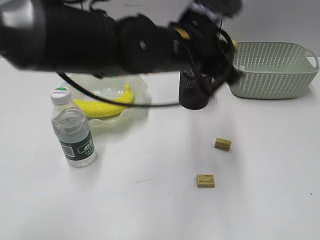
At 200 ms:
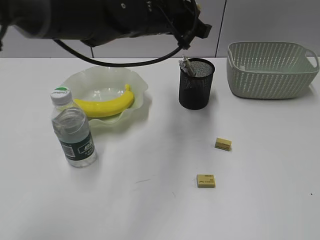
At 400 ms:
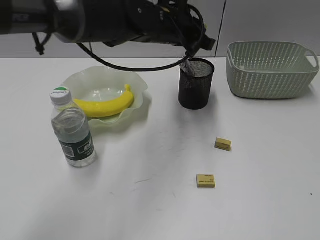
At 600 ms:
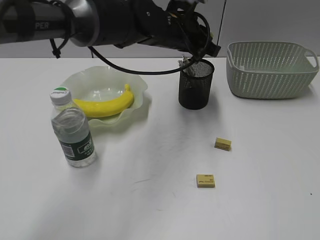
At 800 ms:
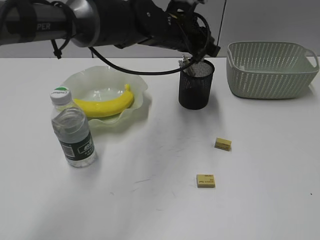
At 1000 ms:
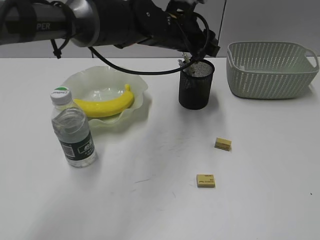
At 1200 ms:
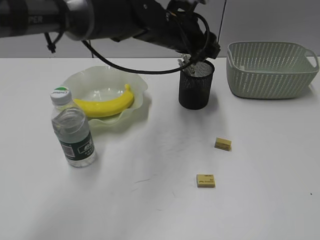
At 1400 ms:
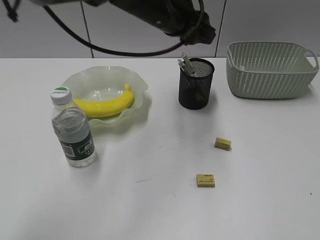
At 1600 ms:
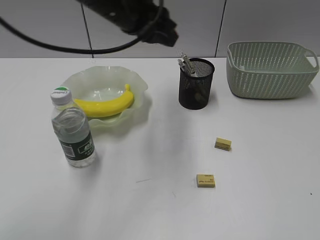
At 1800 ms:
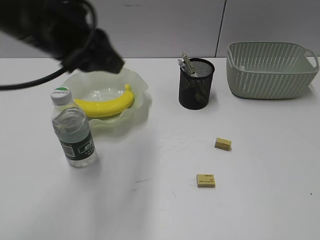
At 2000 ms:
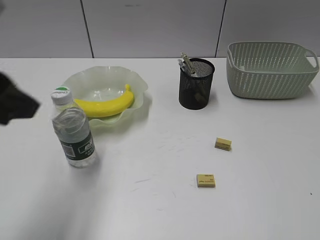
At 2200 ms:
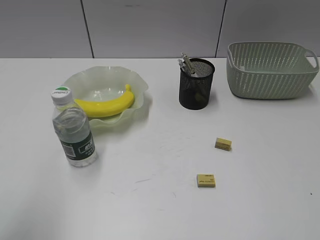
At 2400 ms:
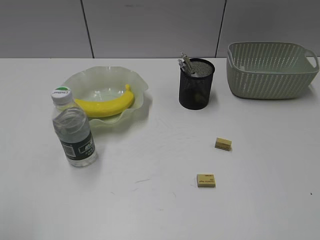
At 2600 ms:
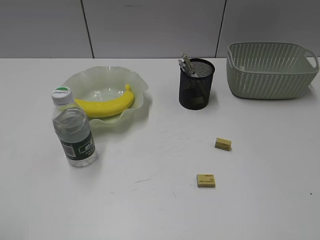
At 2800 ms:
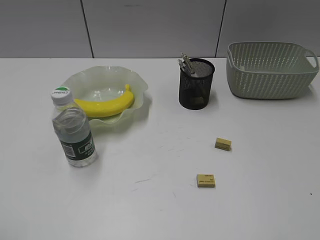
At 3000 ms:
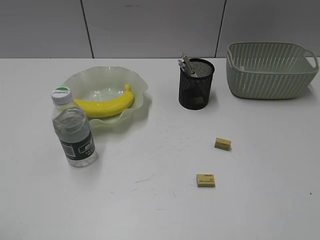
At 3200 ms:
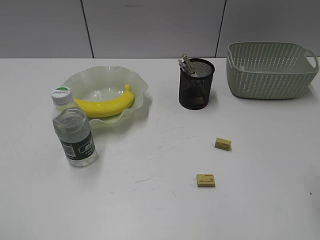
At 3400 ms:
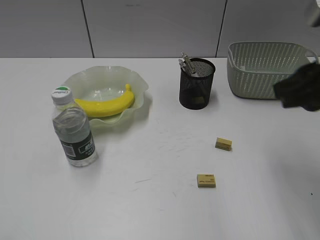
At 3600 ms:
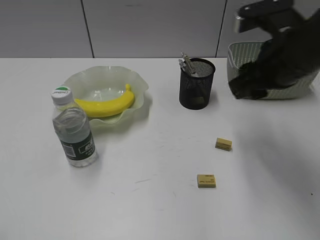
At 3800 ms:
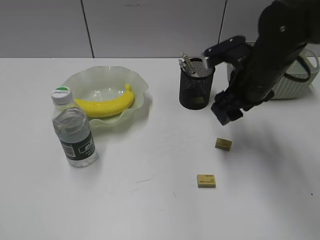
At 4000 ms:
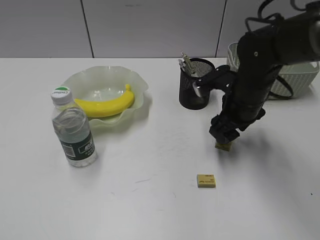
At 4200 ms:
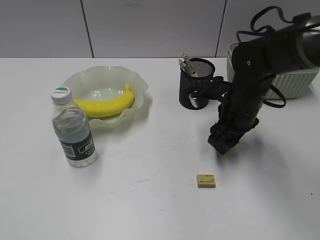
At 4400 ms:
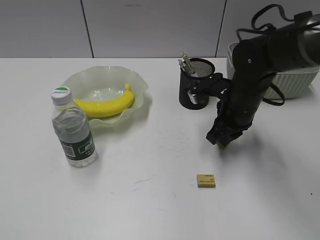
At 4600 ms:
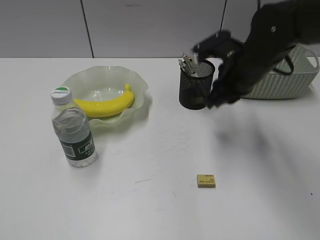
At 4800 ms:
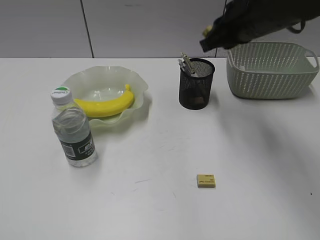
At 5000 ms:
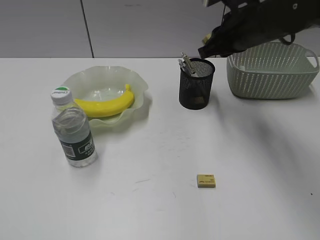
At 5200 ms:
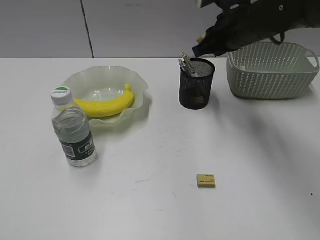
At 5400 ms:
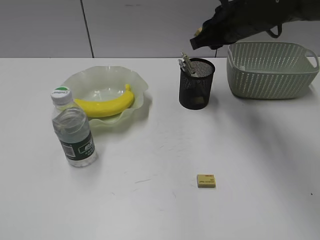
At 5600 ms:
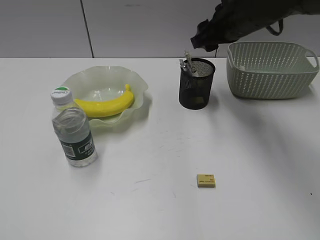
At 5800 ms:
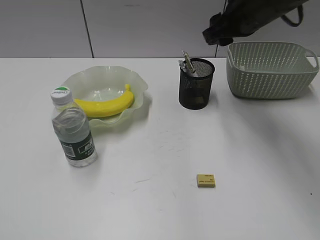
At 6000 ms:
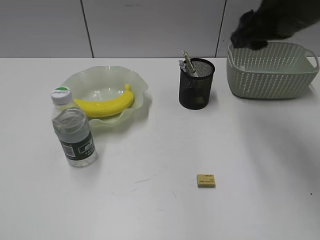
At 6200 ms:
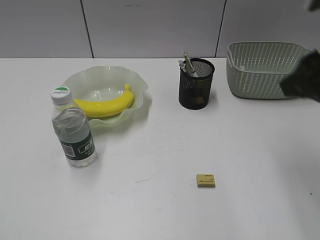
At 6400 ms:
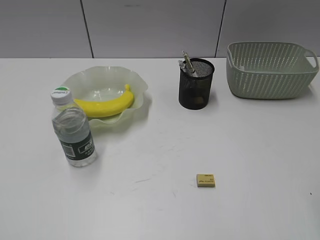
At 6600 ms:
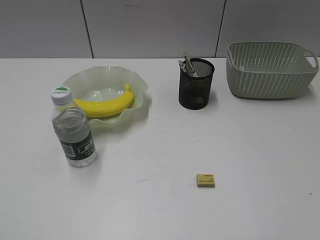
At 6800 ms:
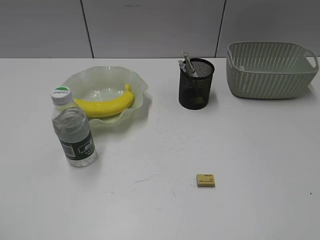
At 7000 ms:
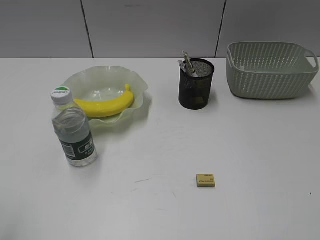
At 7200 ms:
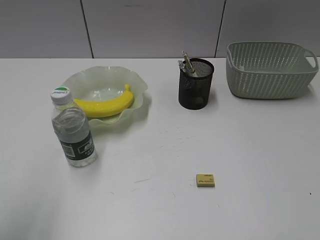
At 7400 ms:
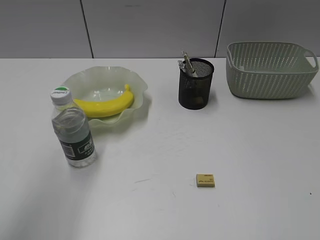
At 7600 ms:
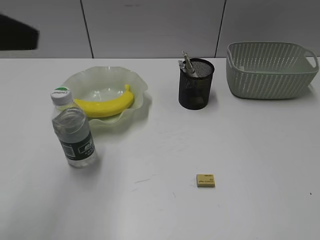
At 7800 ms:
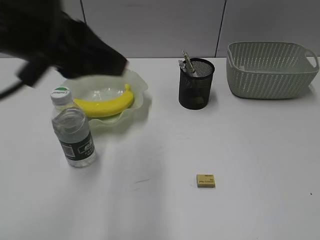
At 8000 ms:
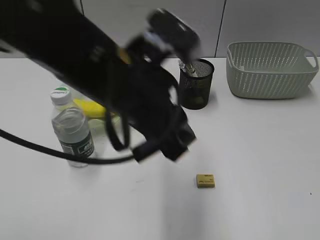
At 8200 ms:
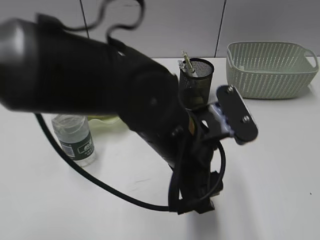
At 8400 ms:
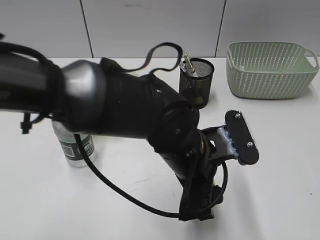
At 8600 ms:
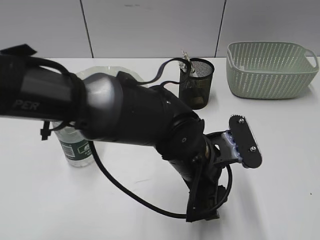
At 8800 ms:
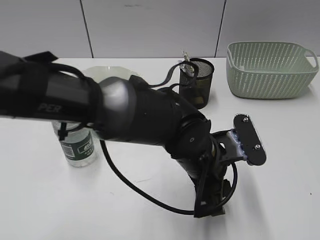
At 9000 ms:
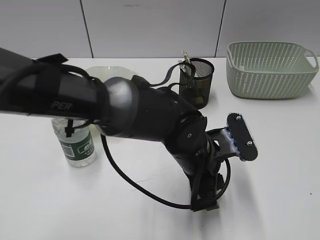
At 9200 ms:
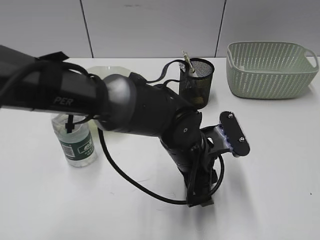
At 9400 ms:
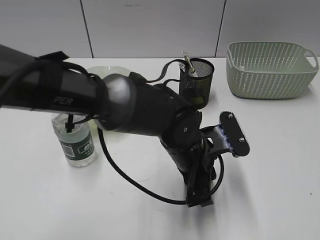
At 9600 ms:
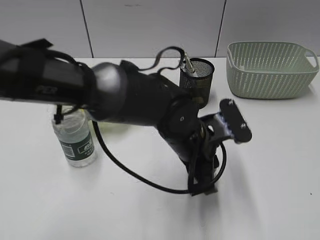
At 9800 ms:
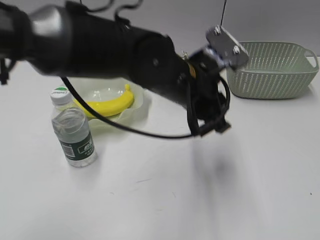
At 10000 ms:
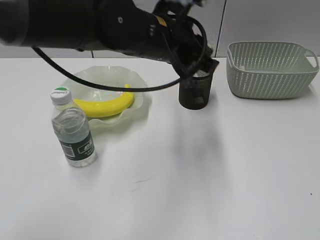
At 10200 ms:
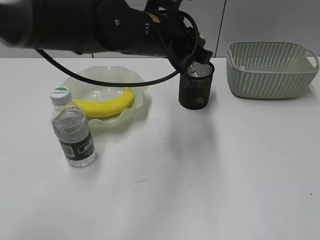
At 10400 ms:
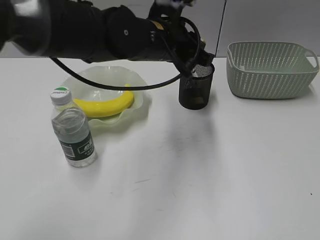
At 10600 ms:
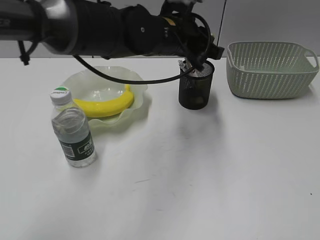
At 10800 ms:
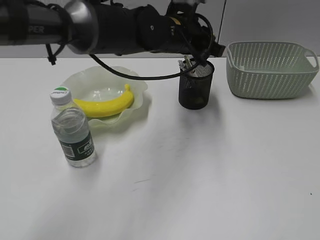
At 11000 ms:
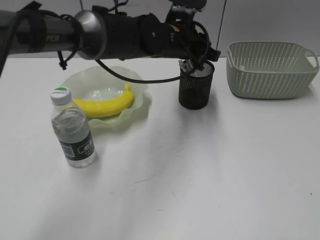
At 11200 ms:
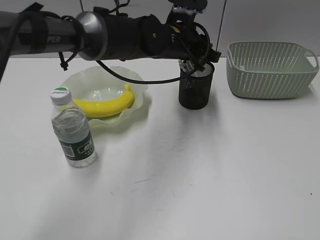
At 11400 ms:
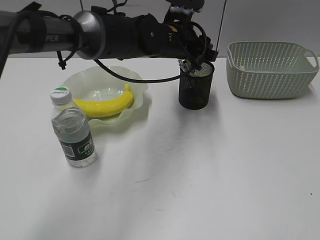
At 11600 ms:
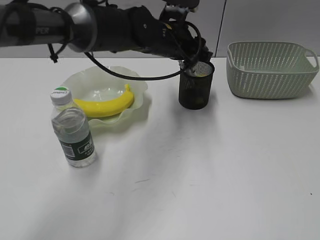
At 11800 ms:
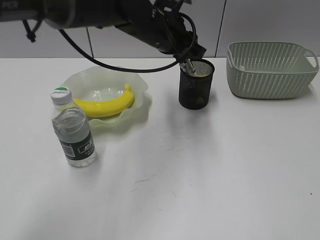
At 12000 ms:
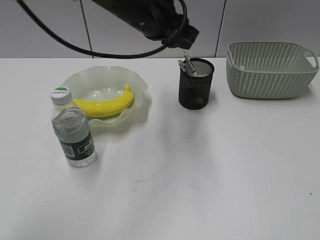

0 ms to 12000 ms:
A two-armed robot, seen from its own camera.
Step, 0 ms to 1000 ms: Place the eraser in pen holder with left gripper.
Step, 1200 ms to 4400 ms: Grasp the eraser with right gripper.
Step, 4600 ms to 5600 ms: Place the eraser in pen holder with right gripper.
Step, 5800 ms to 9400 ms: Grasp the eraser with left gripper.
Step, 9600 ms to 11600 ms: Place the eraser in pen holder with left gripper.
0 ms to 1600 ms: The left gripper goes some 10 cm to the left, moves about 10 cm forward and comes back, and opens, then closes again.
1600 ms to 3000 ms: The right gripper moves about 5 cm; the left gripper moves backward and to the left, approximately 40 cm.
3000 ms to 4400 ms: The right gripper is displaced forward, downward and to the left by some 40 cm, and opens and closes again.
4400 ms to 6000 ms: The right gripper is displaced upward by about 15 cm, and opens.
6000 ms to 7600 ms: The left gripper is displaced forward and to the right by some 25 cm. Meanwhile the right gripper shifts roughly 35 cm backward.
7600 ms to 9000 ms: The left gripper travels to the right and downward by some 35 cm, and opens and closes again.
9000 ms to 10400 ms: The left gripper goes some 15 cm upward, forward and to the left.
10400 ms to 12000 ms: The left gripper travels upward by approximately 5 cm.

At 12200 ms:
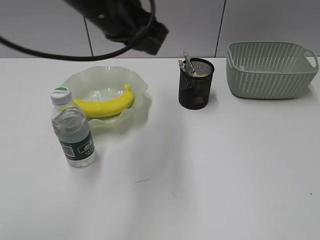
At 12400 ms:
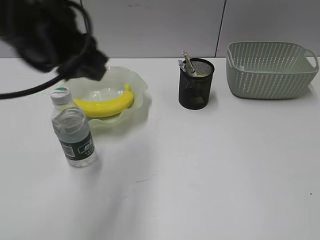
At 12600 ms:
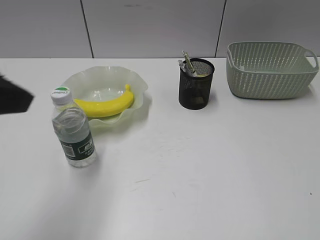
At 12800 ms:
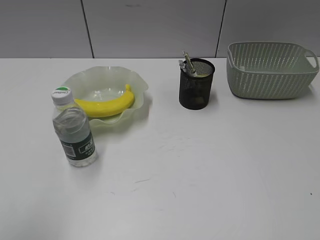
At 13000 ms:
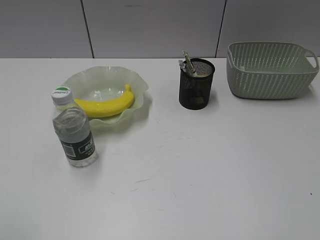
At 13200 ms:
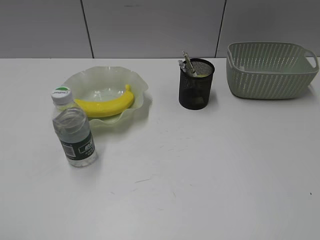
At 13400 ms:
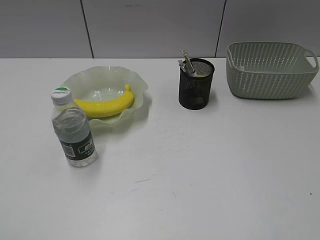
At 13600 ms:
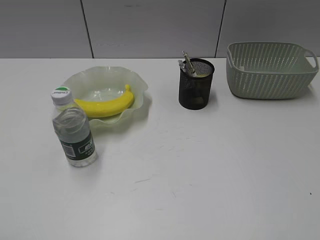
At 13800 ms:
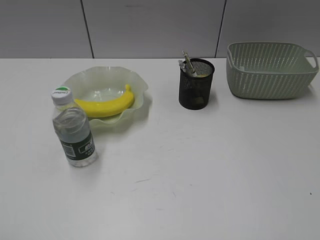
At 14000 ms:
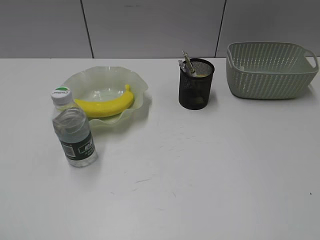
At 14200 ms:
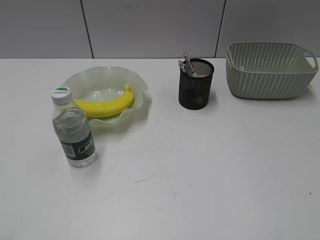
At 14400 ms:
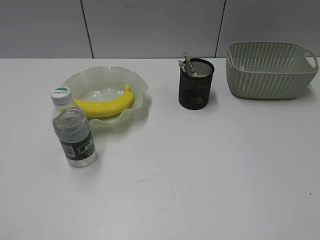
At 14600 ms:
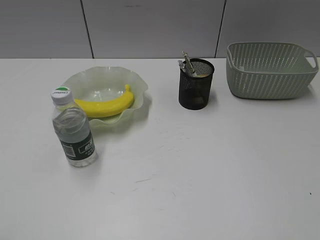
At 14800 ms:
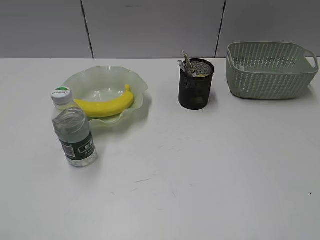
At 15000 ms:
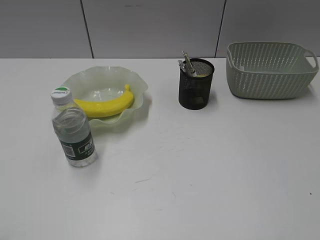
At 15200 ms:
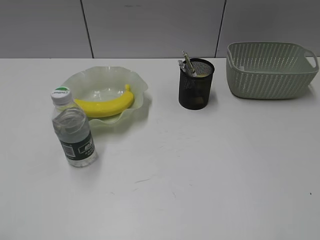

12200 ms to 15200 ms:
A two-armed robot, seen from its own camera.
12200 ms to 13800 ms: The left gripper moves backward and to the left, roughly 40 cm.

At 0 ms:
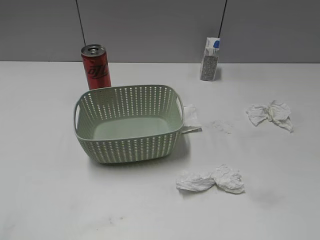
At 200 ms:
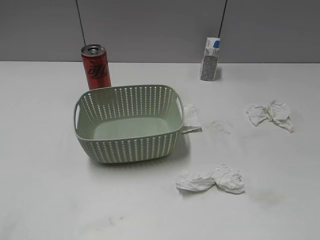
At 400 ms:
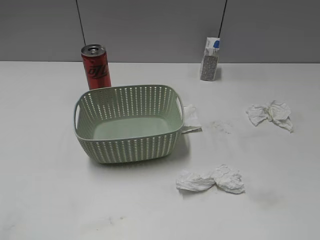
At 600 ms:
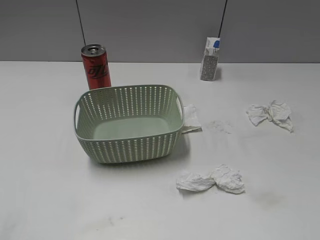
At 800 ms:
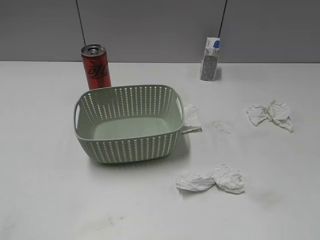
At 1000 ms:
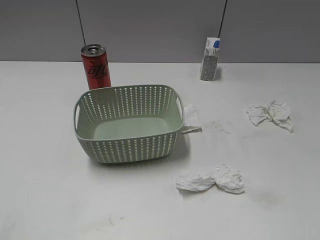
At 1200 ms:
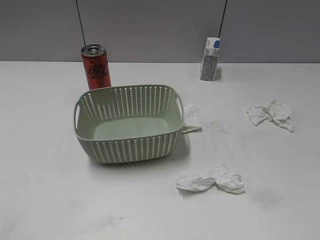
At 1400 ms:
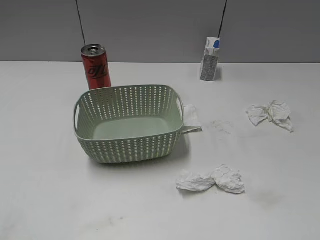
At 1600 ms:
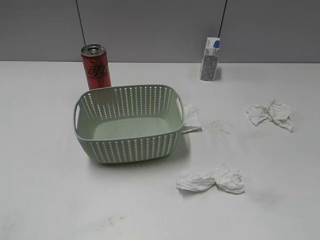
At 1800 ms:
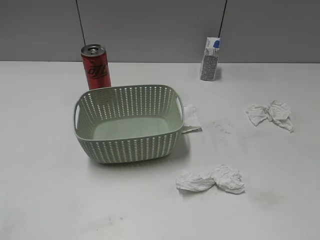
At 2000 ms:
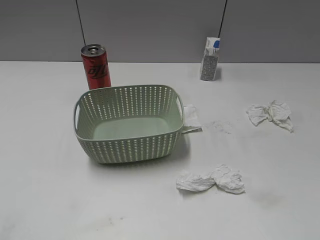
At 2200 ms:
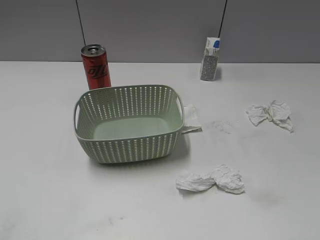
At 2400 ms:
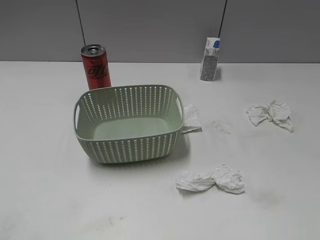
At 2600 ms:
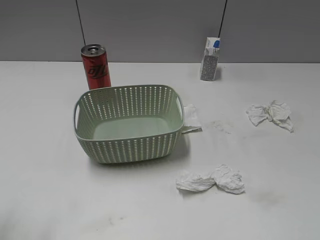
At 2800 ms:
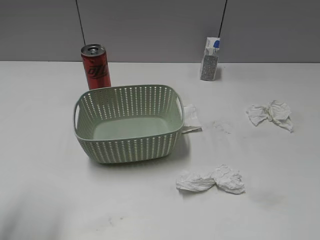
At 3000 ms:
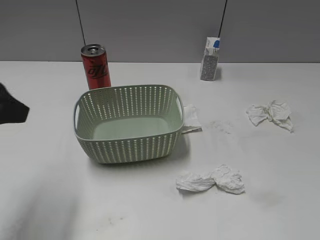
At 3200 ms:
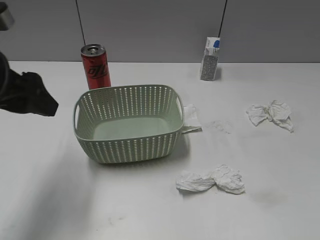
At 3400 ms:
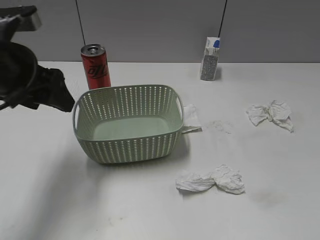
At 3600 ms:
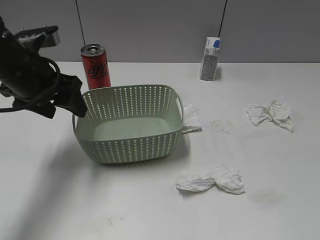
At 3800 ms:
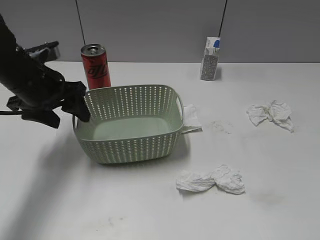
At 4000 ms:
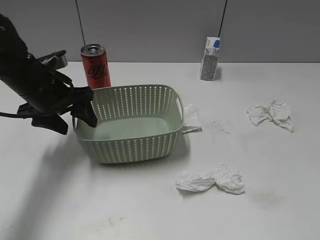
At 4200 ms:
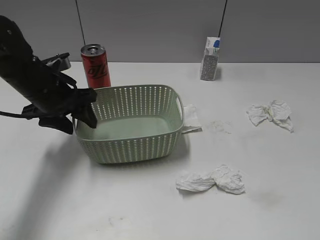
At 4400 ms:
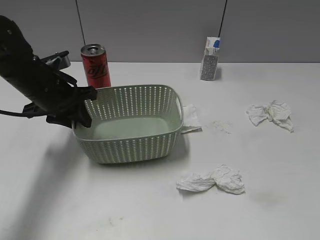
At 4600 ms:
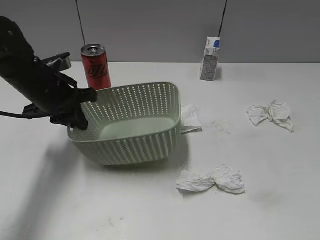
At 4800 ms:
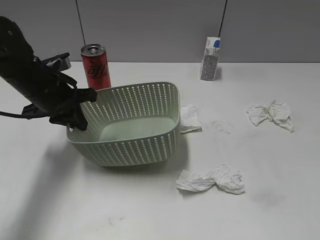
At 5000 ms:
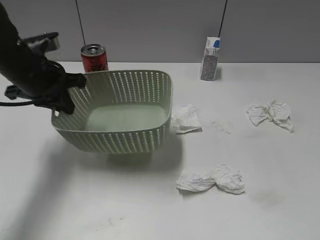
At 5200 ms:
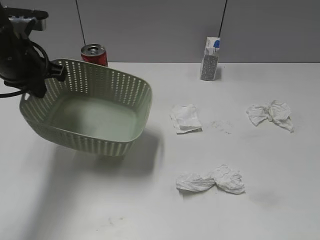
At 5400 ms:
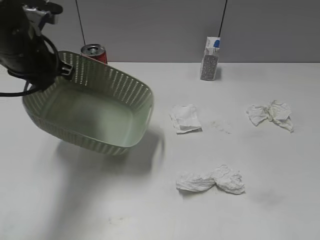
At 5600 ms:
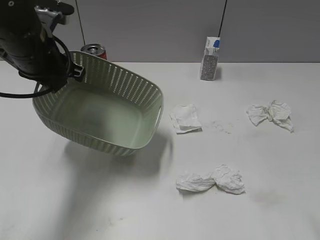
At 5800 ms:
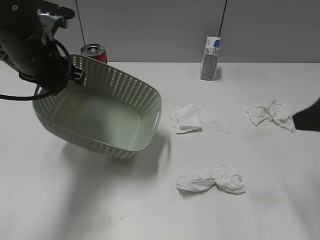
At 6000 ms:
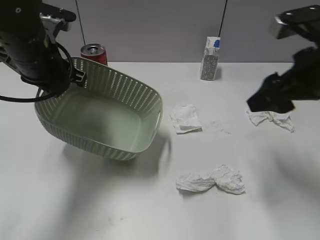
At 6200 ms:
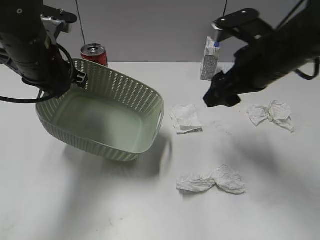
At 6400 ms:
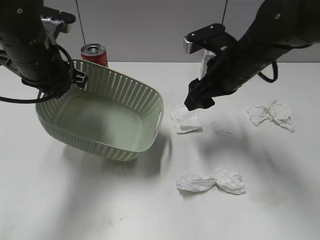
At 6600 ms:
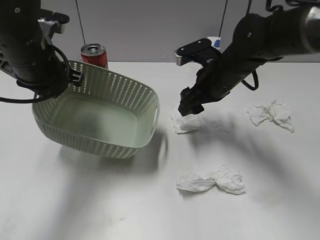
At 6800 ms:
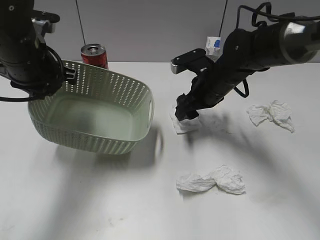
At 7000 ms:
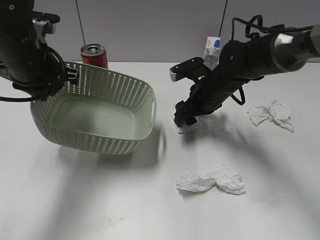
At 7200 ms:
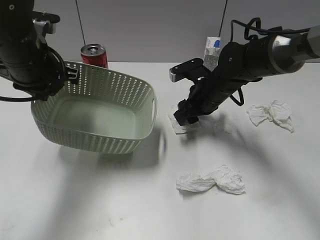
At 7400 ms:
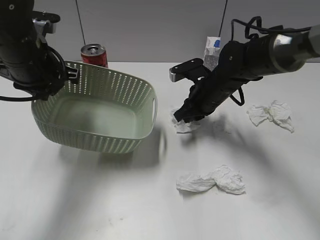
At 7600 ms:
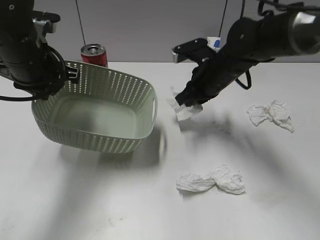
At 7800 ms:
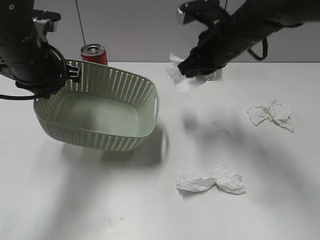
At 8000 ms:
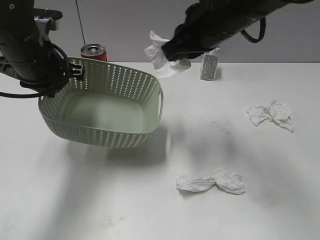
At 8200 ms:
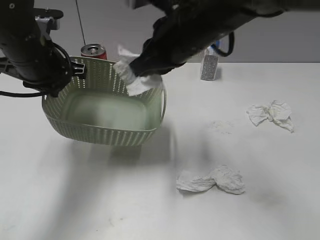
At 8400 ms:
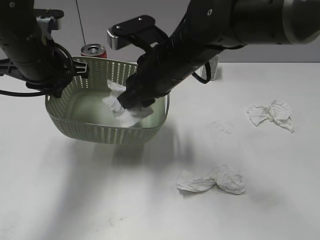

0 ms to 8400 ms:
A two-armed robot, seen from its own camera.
Step, 0 ms to 4600 ms: Grasp the basket with left gripper.
Step, 4800 ms to 5600 ms: Lift the basket with left gripper.
Step, 5800 ms to 7400 ms: Grasp the waste paper with right gripper.
1400 ms to 2800 ms: The left gripper shifts some 15 cm forward and to the right, and opens its fingers.
2800 ms to 4200 ms: The left gripper is displaced forward and downward by roughly 25 cm.
4200 ms to 5600 ms: The left gripper goes about 10 cm upward, and closes up; the right gripper goes about 15 cm forward.
5600 ms to 7000 ms: The right gripper goes roughly 35 cm forward, downward and to the left.
7000 ms to 8400 ms: The right gripper heads upward, to the left and backward, covering approximately 15 cm, and closes its fingers.
